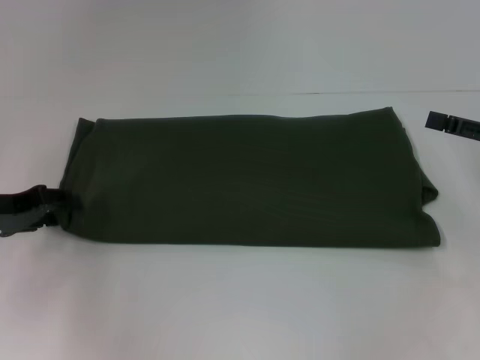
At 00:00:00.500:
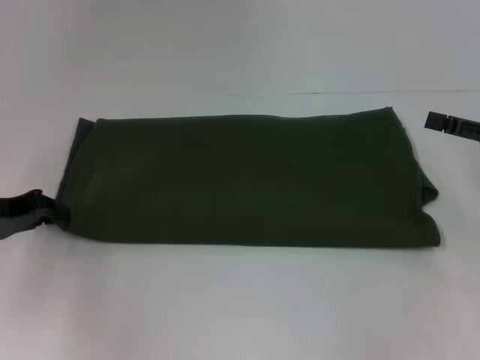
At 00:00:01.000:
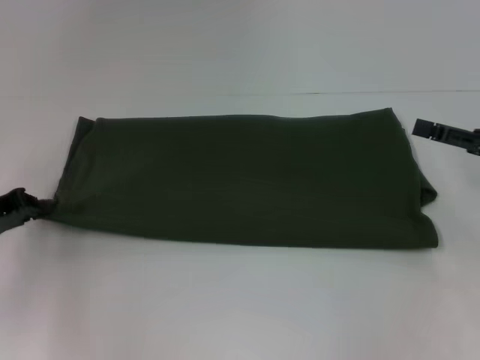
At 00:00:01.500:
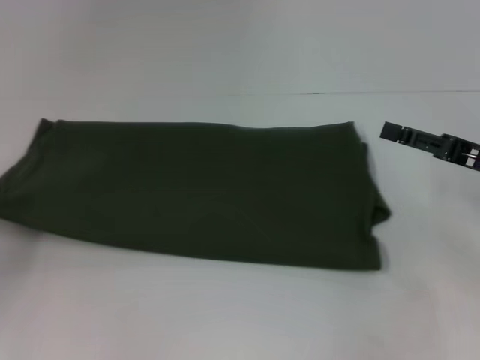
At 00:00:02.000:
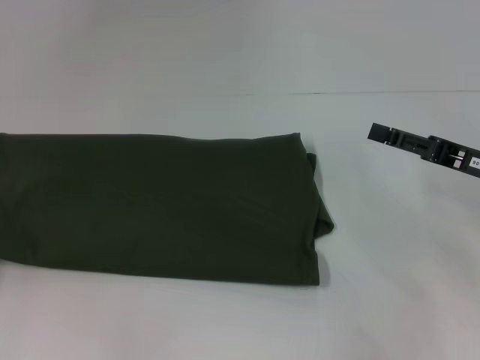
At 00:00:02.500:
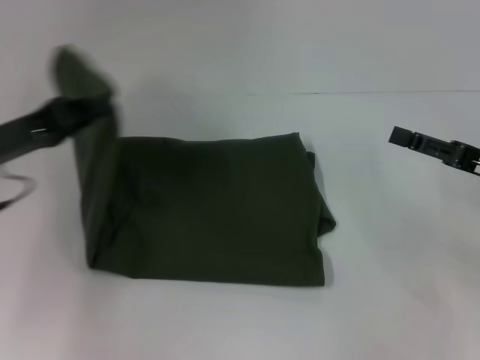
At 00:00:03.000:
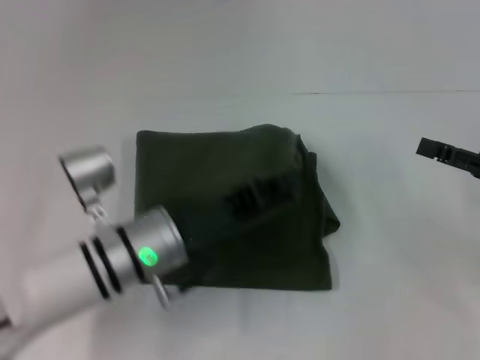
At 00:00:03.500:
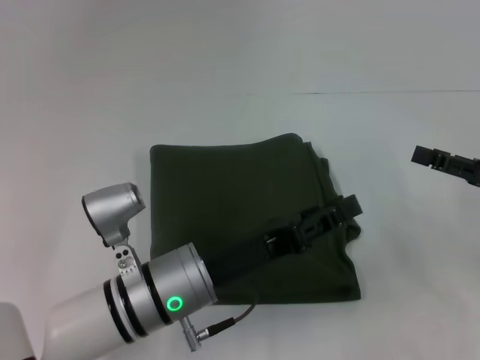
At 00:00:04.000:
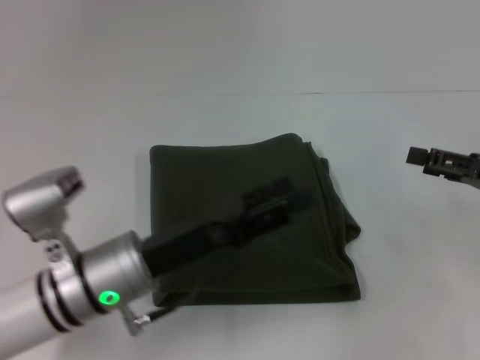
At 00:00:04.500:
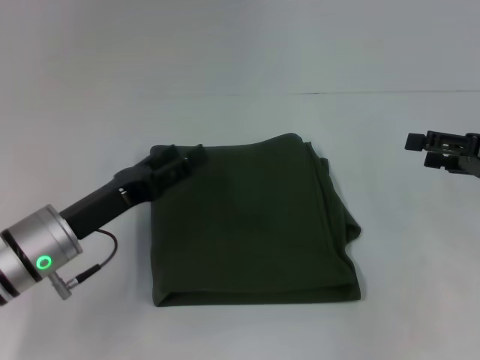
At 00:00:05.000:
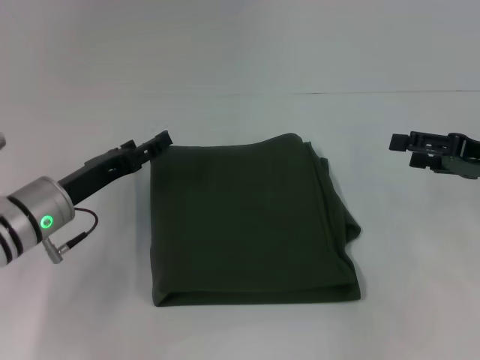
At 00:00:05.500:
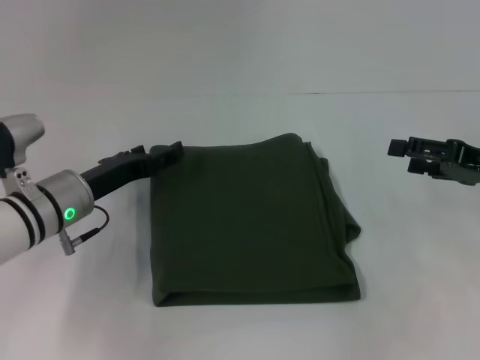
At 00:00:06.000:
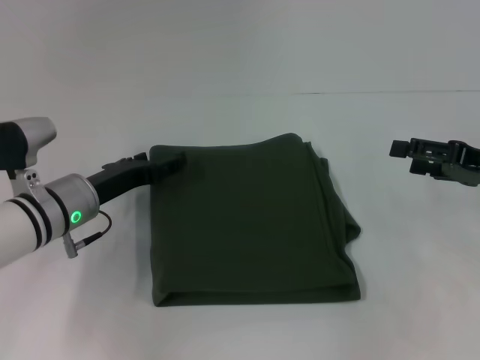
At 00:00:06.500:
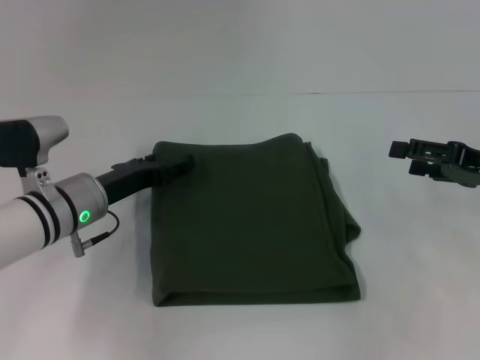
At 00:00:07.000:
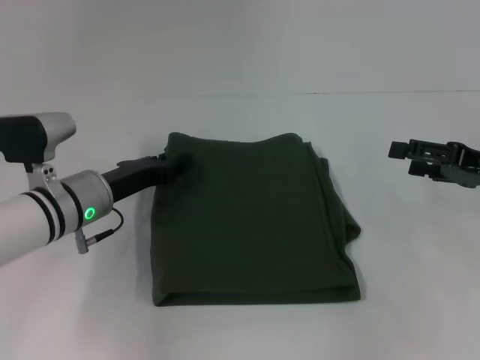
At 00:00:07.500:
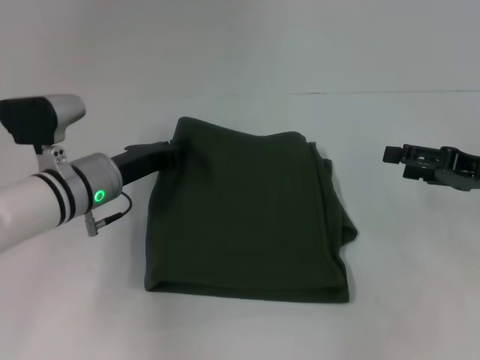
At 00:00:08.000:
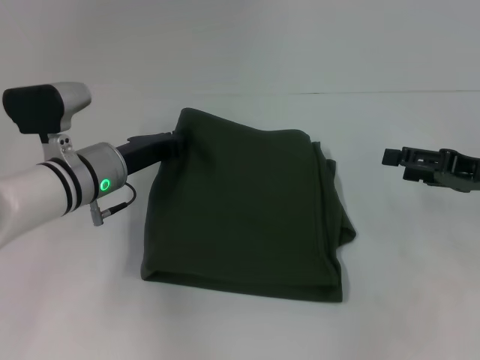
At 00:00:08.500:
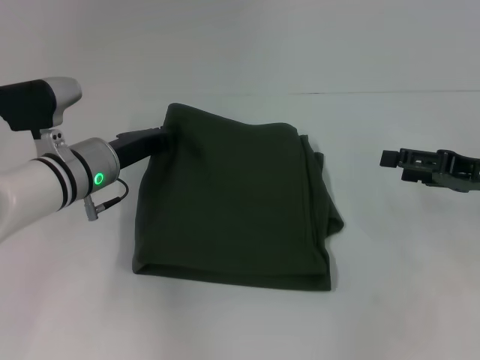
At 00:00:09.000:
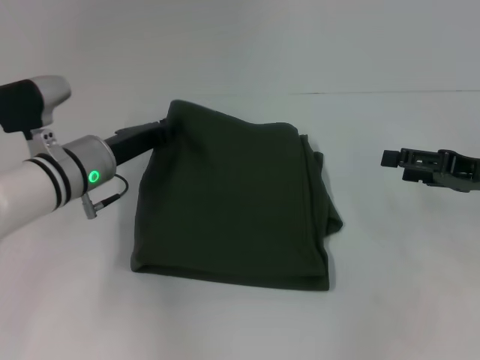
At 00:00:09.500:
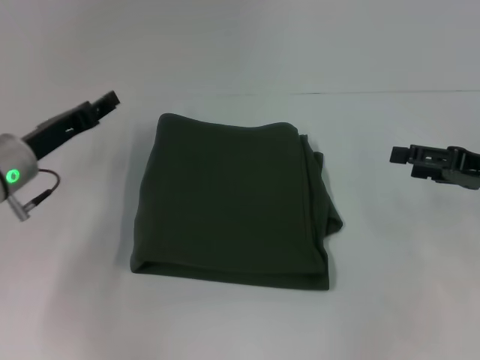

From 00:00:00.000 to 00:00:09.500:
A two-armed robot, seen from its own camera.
Step, from 00:00:00.000 to 00:00:03.000: Fold the clothes with your left hand.
From 00:00:00.000 to 00:00:02.000: The right gripper is displaced to the left by about 5 cm; the left gripper shifts some 15 cm to the left and backward, and closes up.
From 00:00:02.000 to 00:00:04.000: The left gripper heads to the right, covering roughly 30 cm, and opens its fingers.
From 00:00:04.000 to 00:00:05.500: The left gripper goes some 10 cm forward and to the left, and opens up.
From 00:00:05.500 to 00:00:07.500: The left gripper closes up.
From 00:00:07.500 to 00:00:09.500: The left gripper heads to the left, covering roughly 5 cm.

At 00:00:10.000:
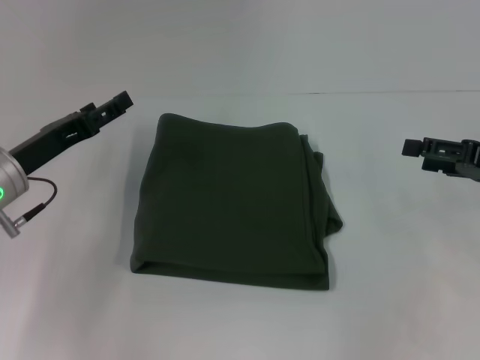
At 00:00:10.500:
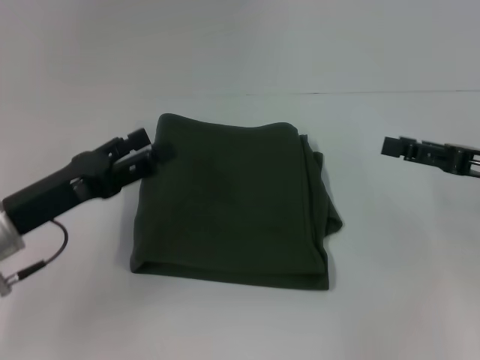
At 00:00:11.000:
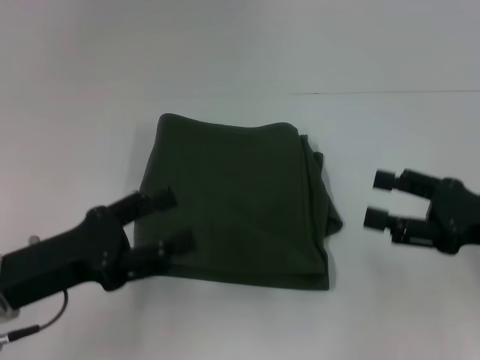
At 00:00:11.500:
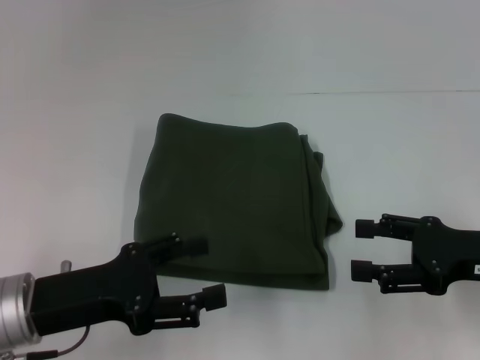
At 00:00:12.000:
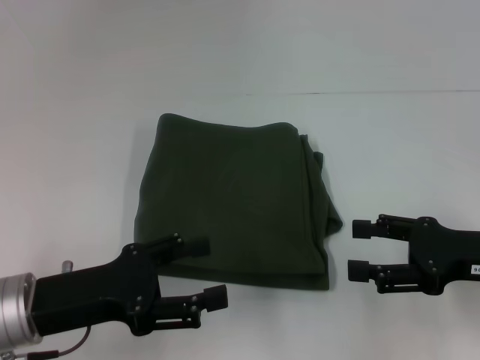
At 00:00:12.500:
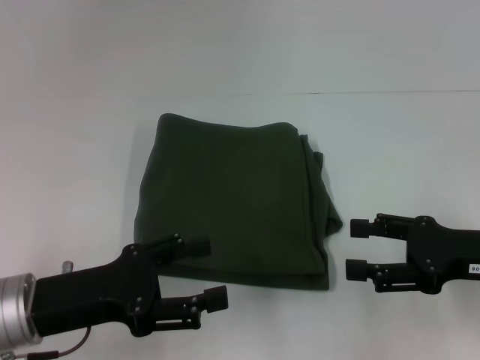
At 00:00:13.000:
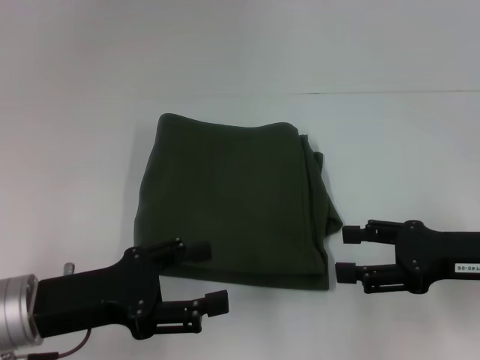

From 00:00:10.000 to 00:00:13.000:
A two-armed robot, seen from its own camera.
From 00:00:10.000 to 00:00:11.500: The right gripper heads backward and to the left, covering about 10 cm. Meanwhile the left gripper moves backward, about 10 cm.
From 00:00:11.500 to 00:00:13.000: The grippers move only a little.
